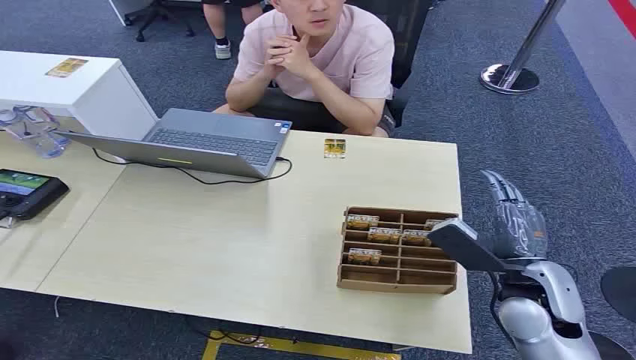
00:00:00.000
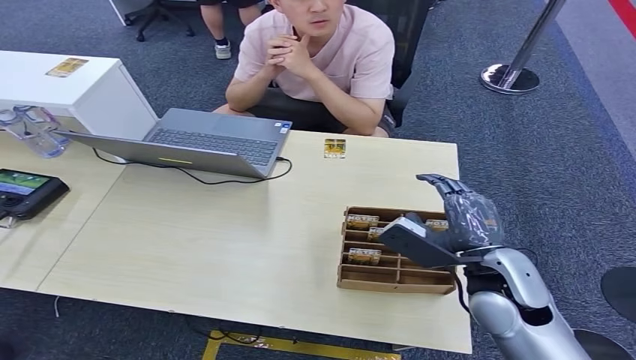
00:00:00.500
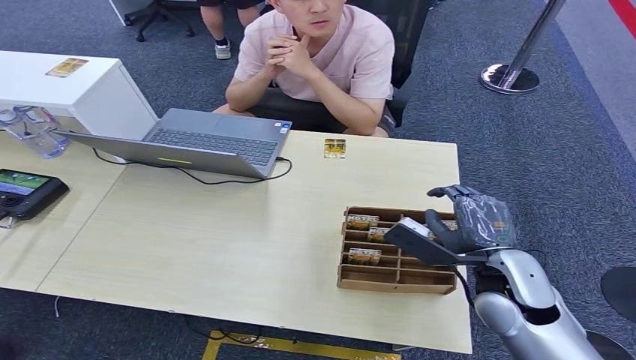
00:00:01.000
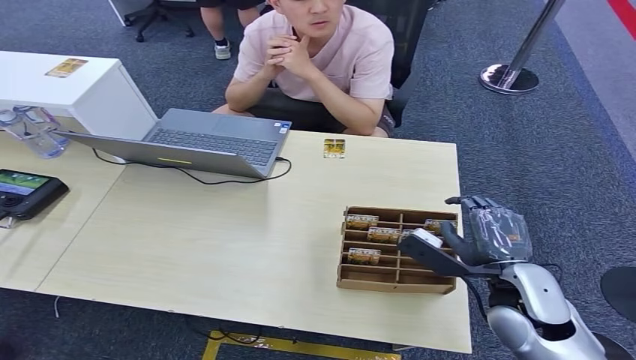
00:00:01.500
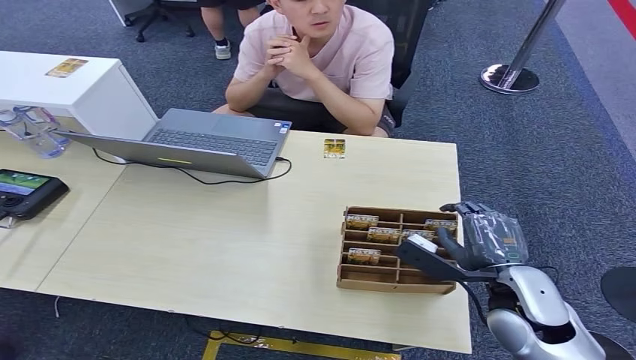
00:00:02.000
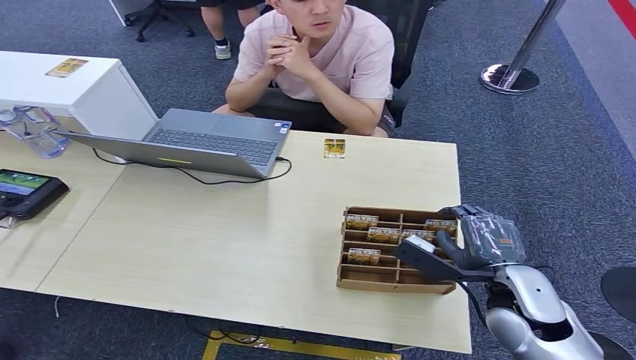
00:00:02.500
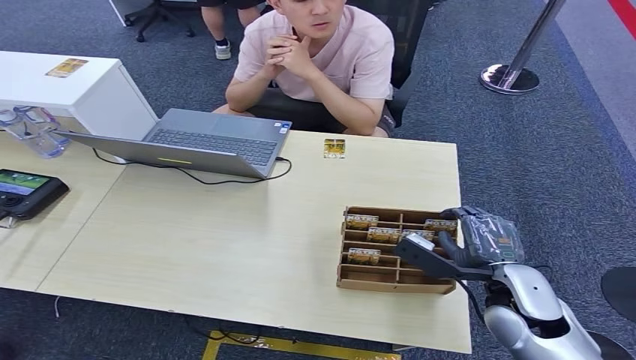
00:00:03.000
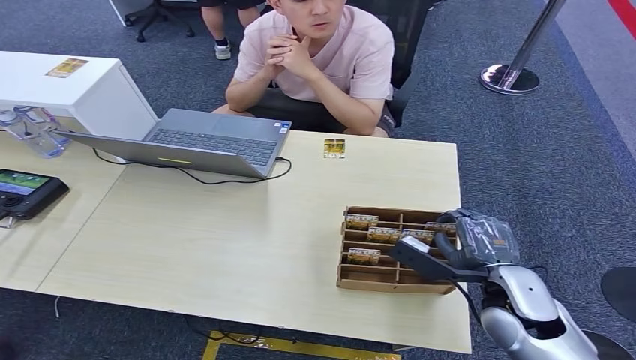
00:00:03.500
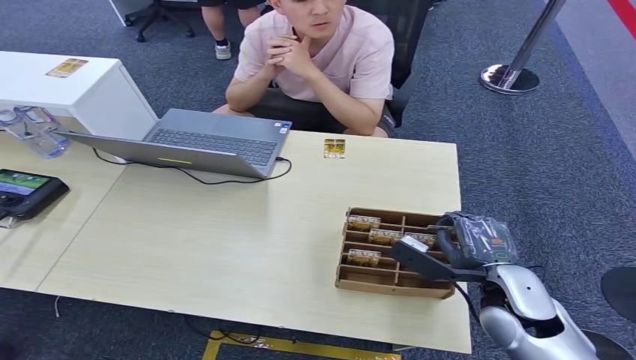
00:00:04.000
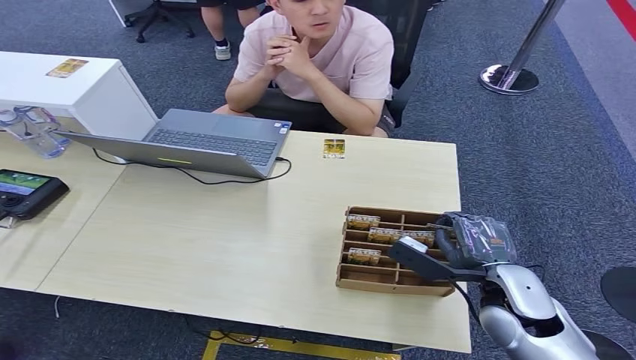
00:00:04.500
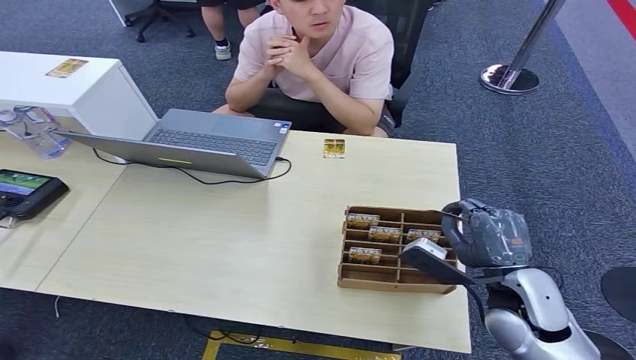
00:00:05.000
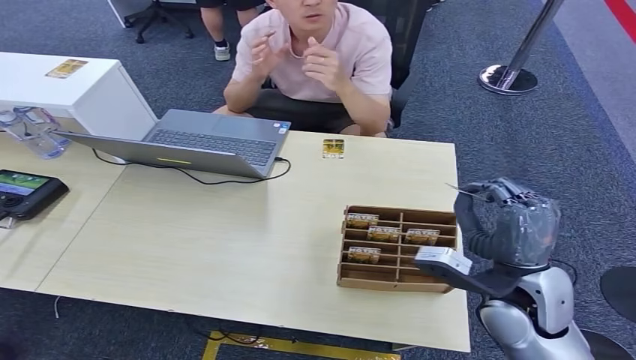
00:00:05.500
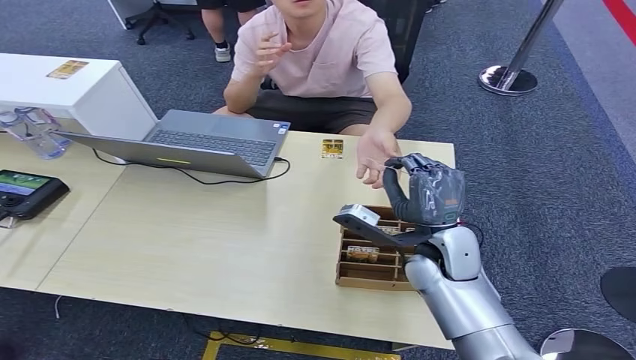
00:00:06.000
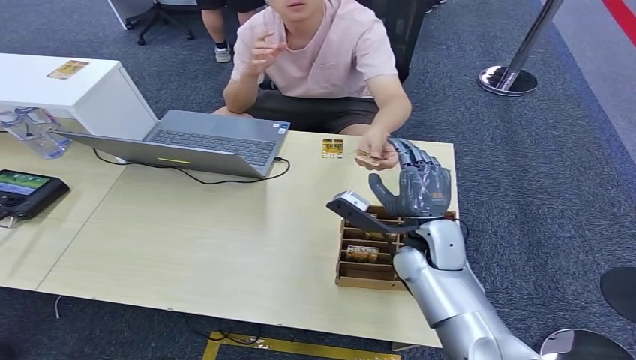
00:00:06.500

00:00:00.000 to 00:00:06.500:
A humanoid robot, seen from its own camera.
Step, 00:00:00.000 to 00:00:05.500: Pick up the key card from the card box.
Step, 00:00:06.000 to 00:00:06.500: Hand the key card to the target.
00:00:02.000 to 00:00:04.500: There are only small adjustments of the hands.
00:00:04.500 to 00:00:06.500: The right hand heads to the left and forward, covering some 15 cm.

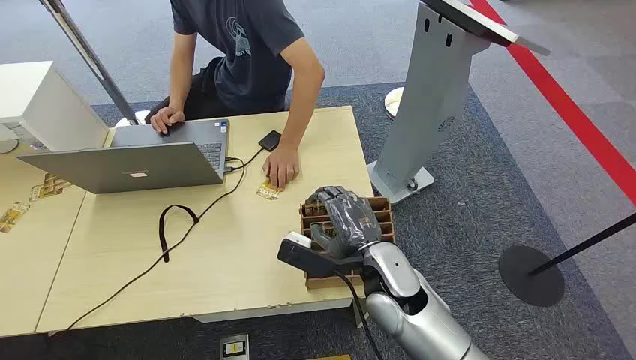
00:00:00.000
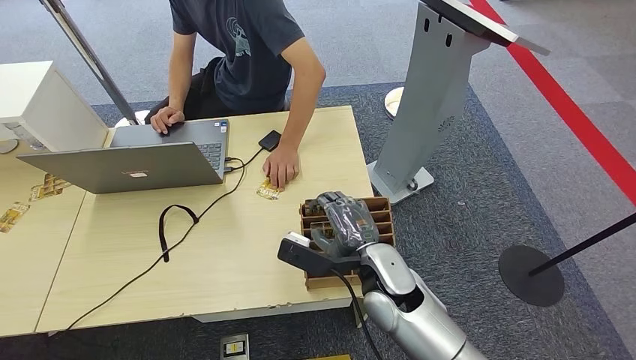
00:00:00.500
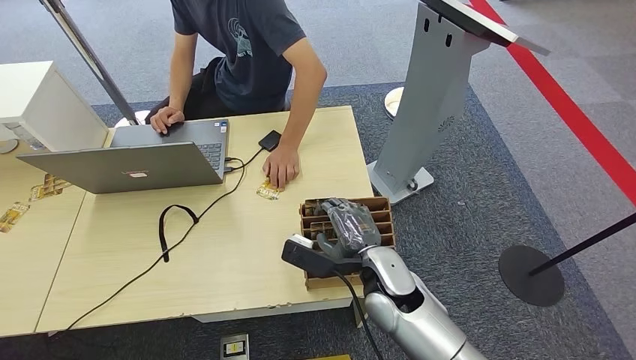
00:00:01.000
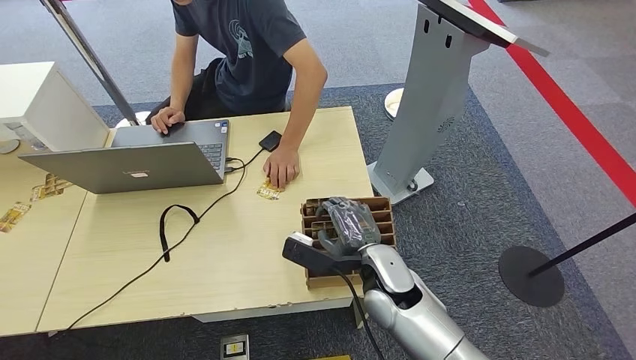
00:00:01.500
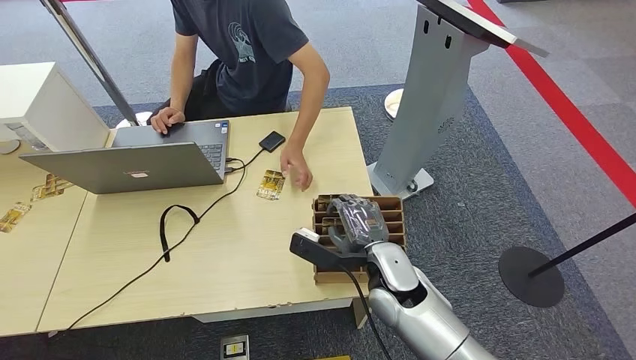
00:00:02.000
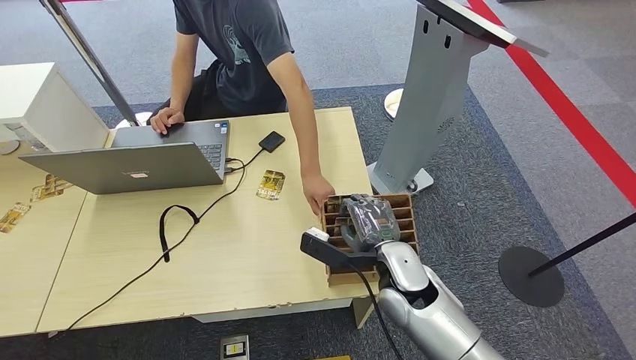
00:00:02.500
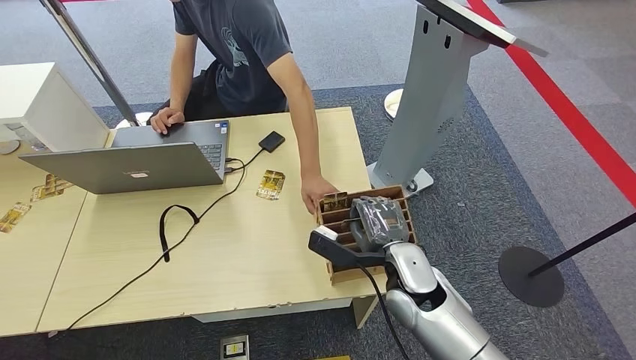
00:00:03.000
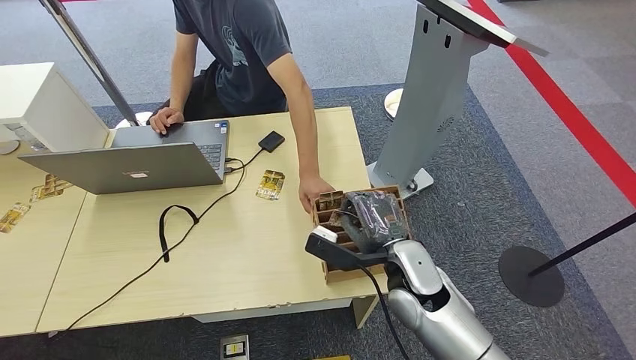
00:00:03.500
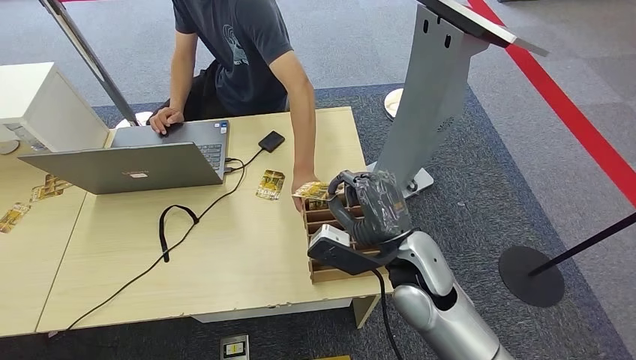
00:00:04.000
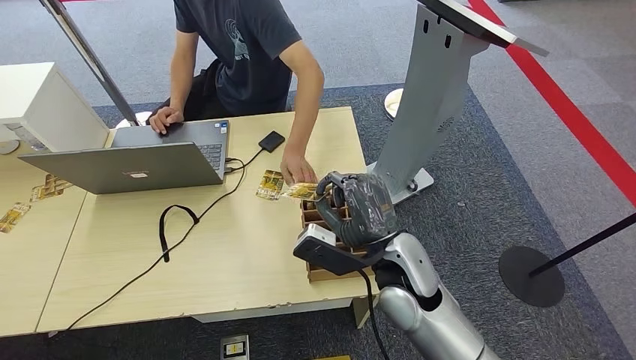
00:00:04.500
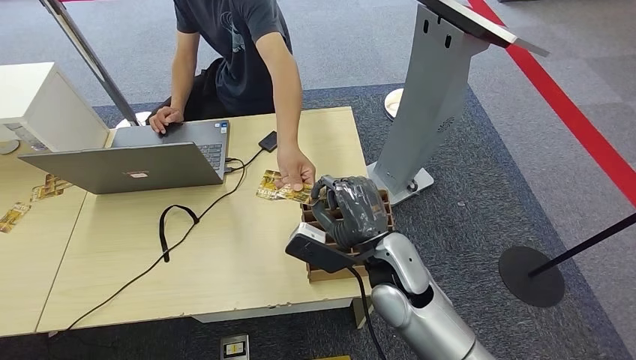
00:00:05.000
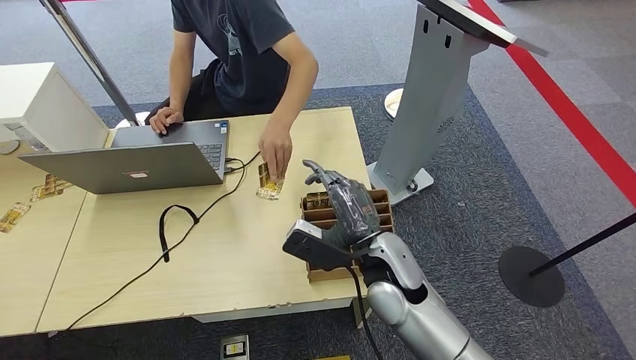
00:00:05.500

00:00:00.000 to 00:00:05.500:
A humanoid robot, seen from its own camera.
Step, 00:00:00.000 to 00:00:03.500: Pick up the key card from the card box.
Step, 00:00:04.000 to 00:00:05.500: Hand the key card to the target.
00:00:02.000 to 00:00:03.500: The hands stay close to where they were, moving slightly.
00:00:03.500 to 00:00:05.500: The right hand ends up roughly 5 cm from where it was.

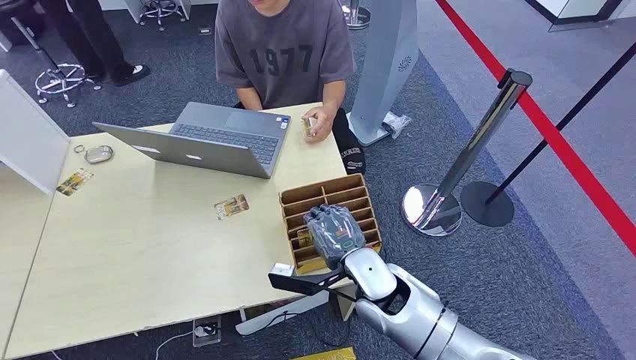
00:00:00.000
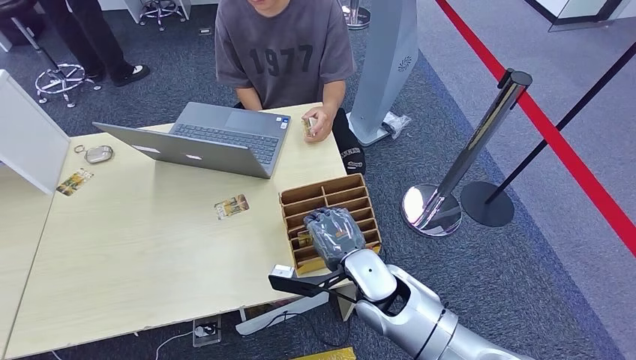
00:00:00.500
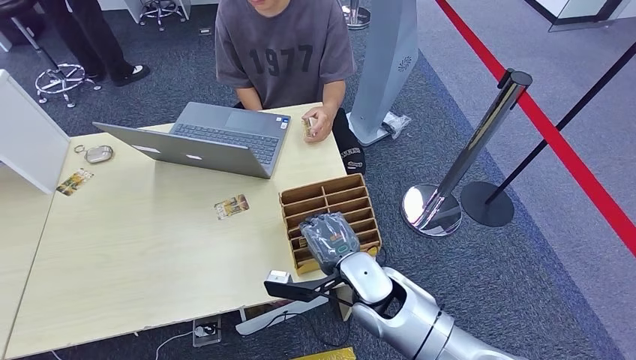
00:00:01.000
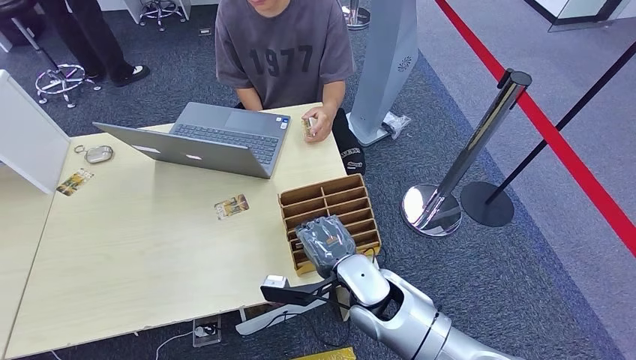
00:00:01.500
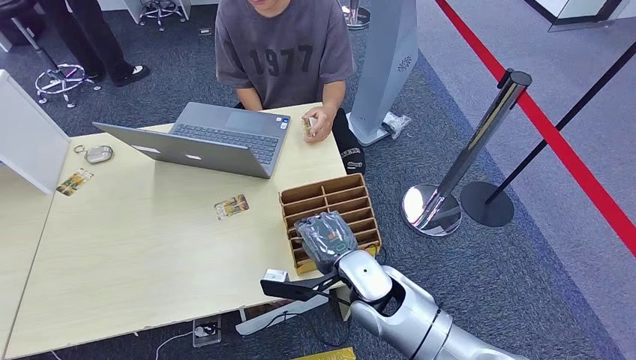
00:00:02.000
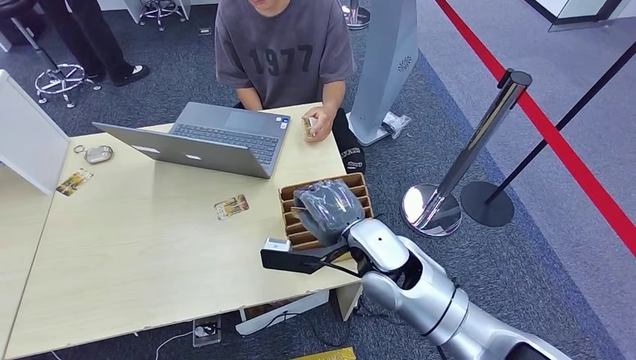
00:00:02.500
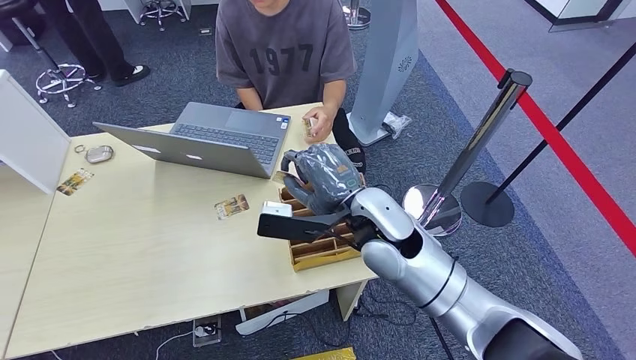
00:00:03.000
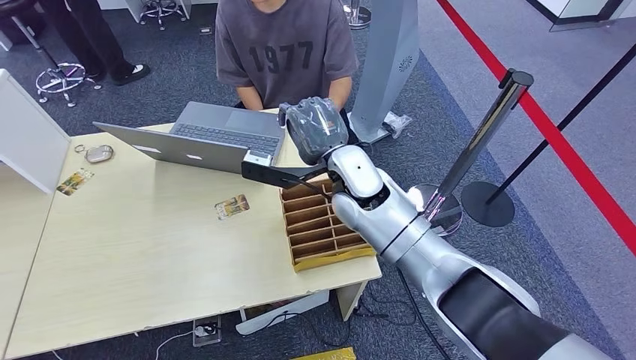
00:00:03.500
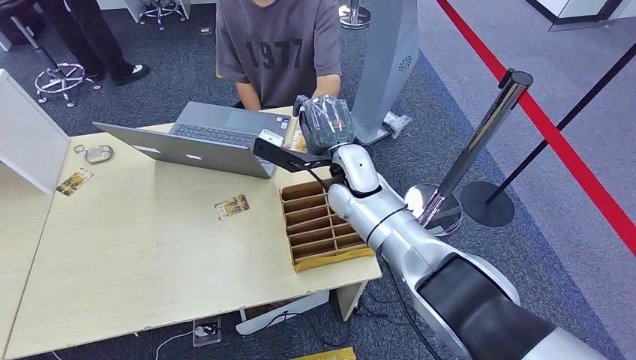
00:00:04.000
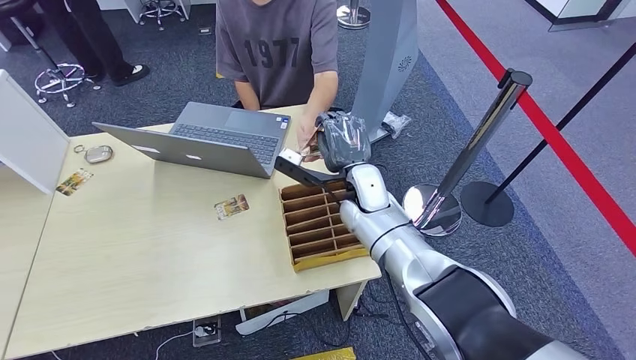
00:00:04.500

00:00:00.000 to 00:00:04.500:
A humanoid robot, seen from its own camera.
Step, 00:00:00.000 to 00:00:02.000: Pick up the key card from the card box.
Step, 00:00:03.500 to 00:00:04.500: Hand the key card to the target.
00:00:02.000 to 00:00:04.500: The left hand shifts approximately 5 cm forward. Meanwhile the right hand heads forward, covering roughly 20 cm.
